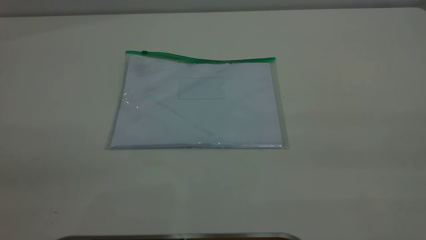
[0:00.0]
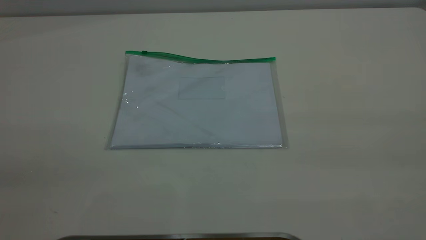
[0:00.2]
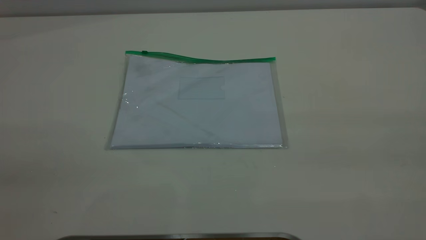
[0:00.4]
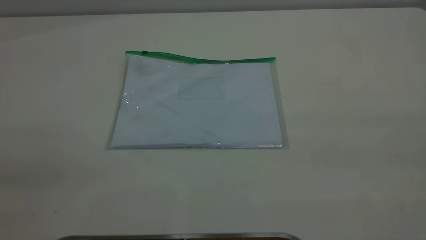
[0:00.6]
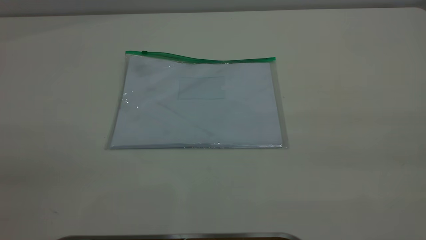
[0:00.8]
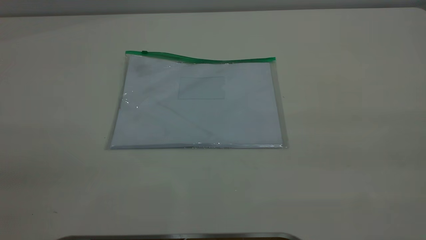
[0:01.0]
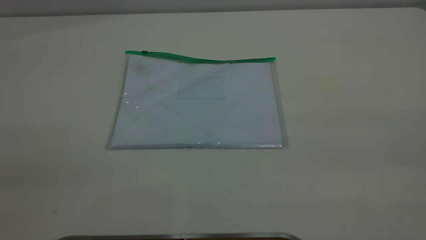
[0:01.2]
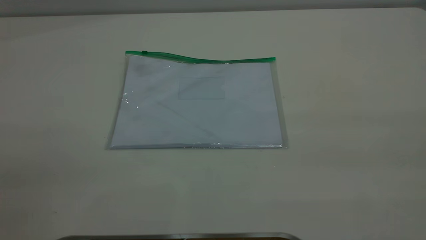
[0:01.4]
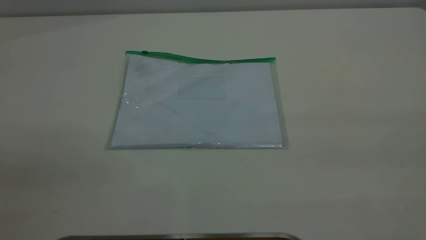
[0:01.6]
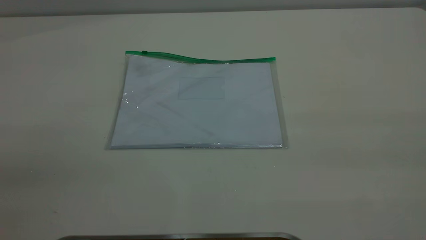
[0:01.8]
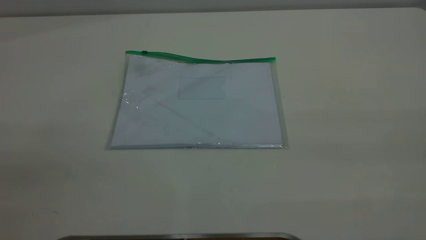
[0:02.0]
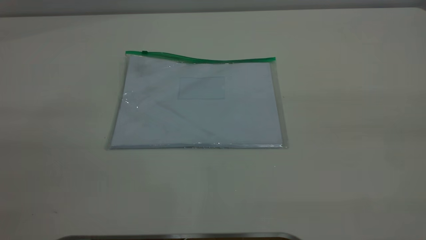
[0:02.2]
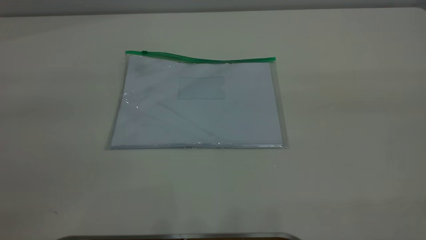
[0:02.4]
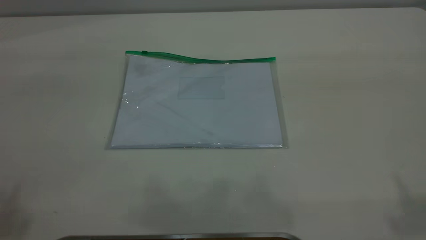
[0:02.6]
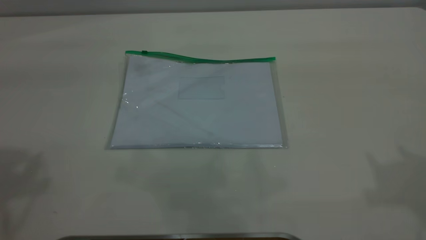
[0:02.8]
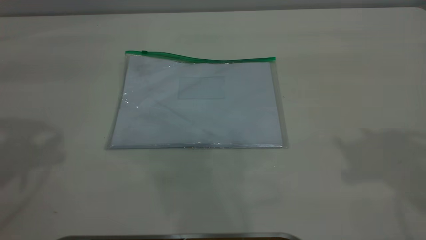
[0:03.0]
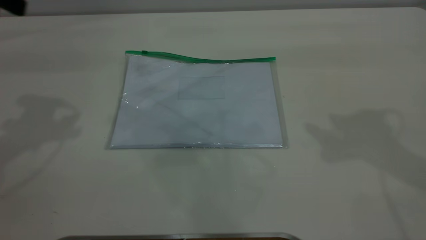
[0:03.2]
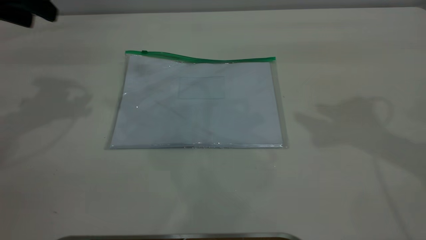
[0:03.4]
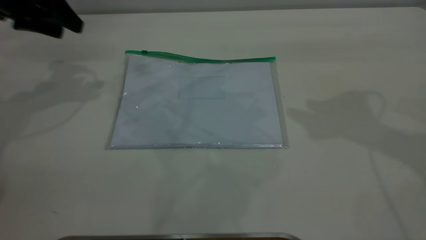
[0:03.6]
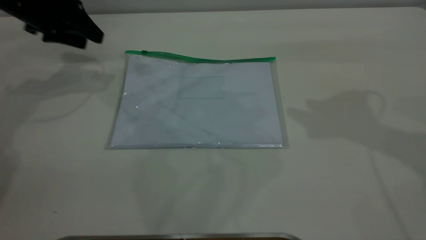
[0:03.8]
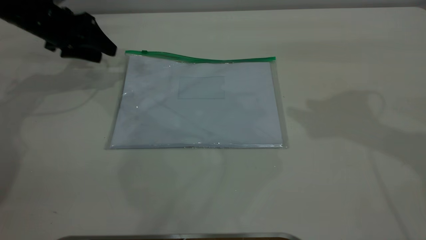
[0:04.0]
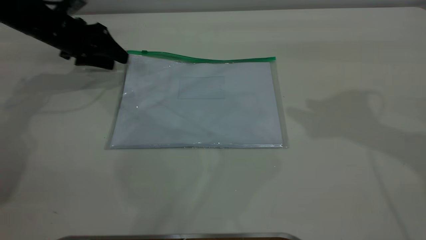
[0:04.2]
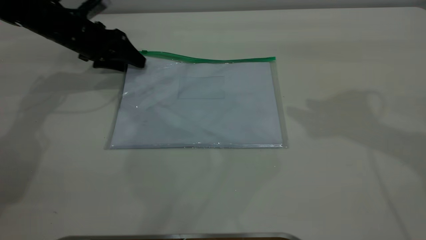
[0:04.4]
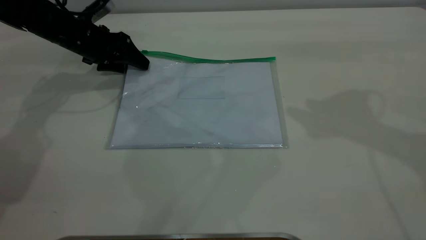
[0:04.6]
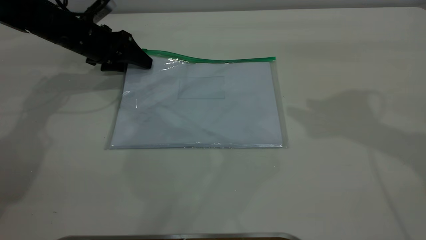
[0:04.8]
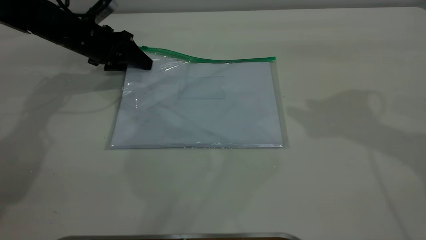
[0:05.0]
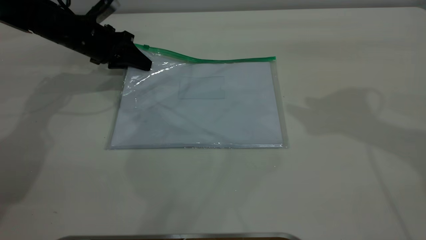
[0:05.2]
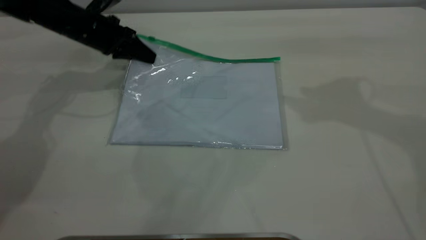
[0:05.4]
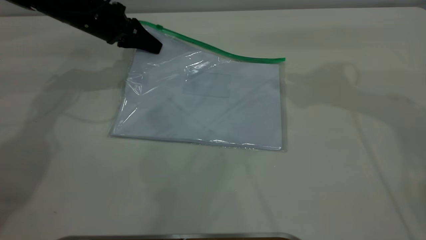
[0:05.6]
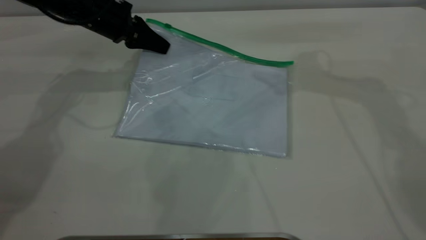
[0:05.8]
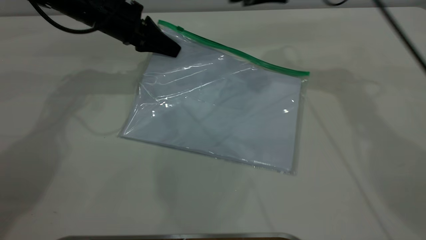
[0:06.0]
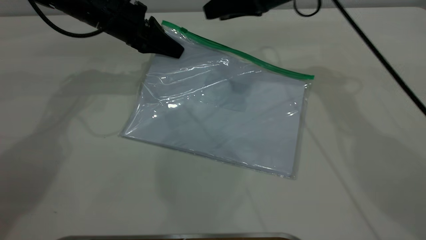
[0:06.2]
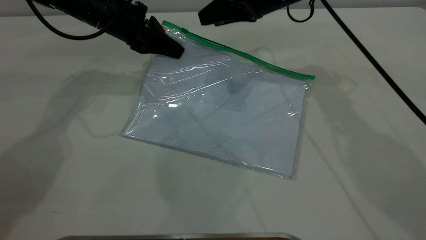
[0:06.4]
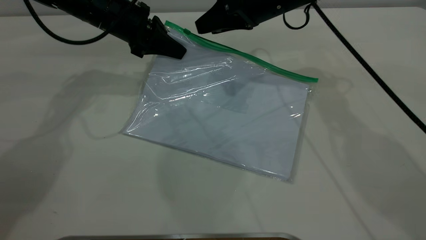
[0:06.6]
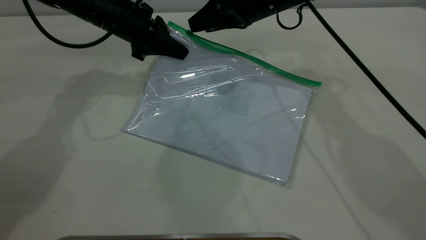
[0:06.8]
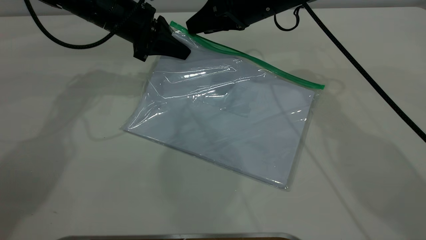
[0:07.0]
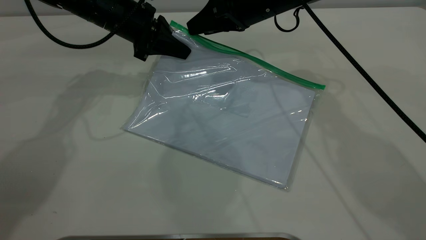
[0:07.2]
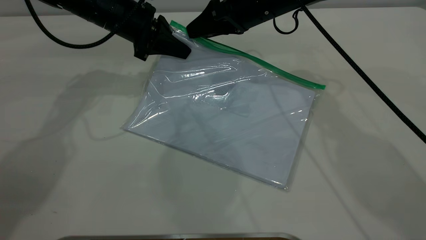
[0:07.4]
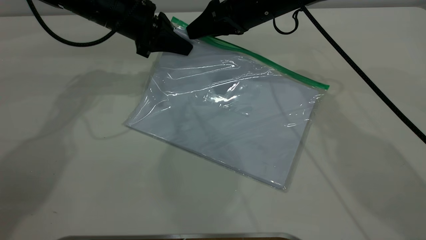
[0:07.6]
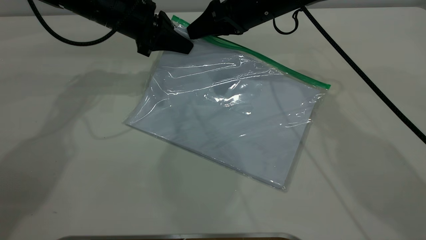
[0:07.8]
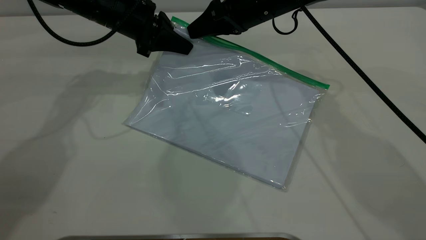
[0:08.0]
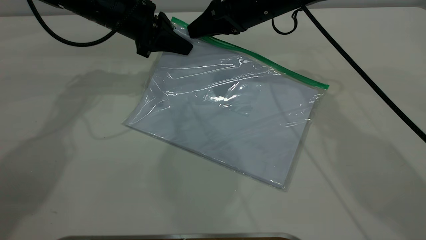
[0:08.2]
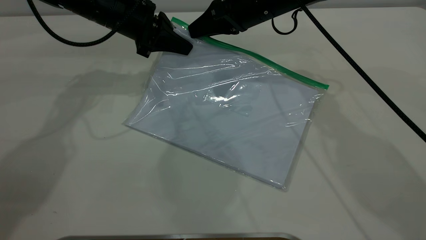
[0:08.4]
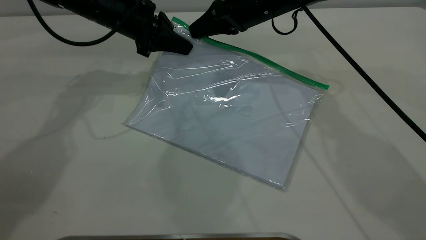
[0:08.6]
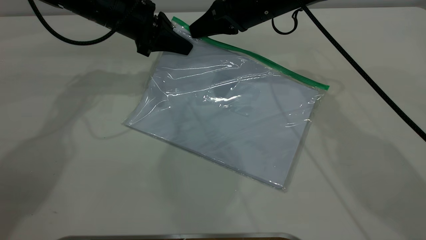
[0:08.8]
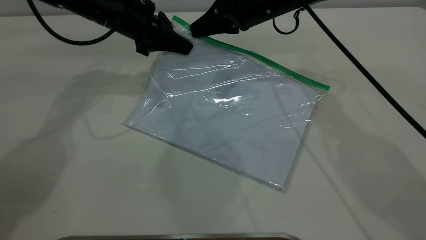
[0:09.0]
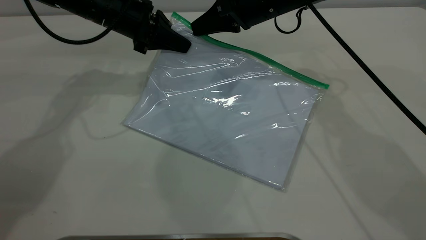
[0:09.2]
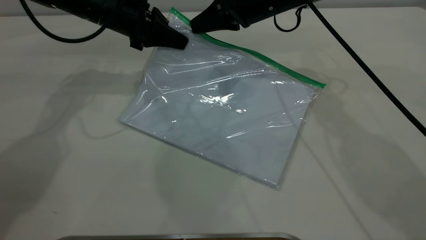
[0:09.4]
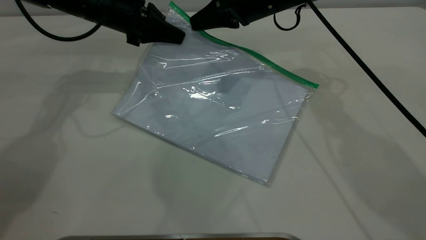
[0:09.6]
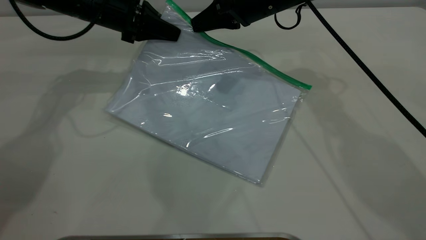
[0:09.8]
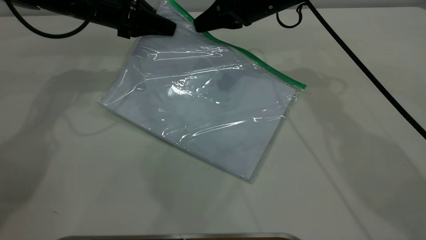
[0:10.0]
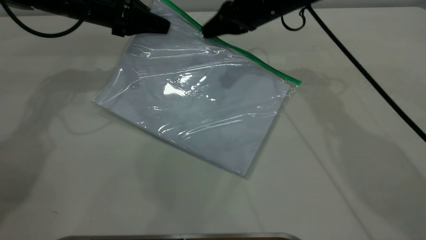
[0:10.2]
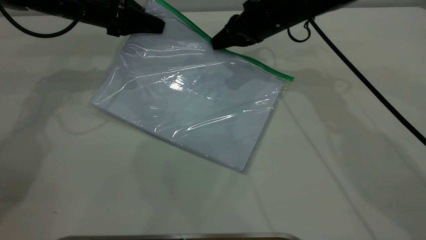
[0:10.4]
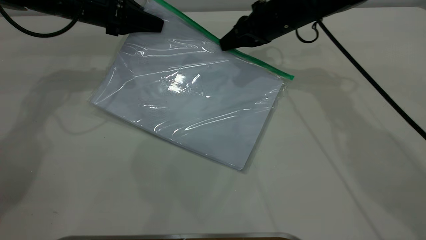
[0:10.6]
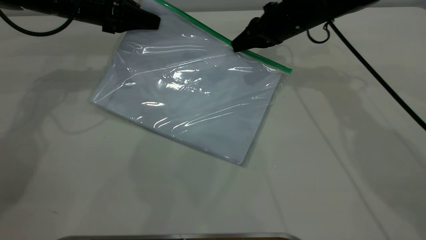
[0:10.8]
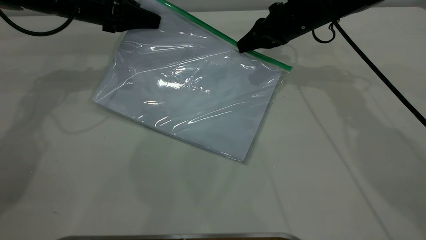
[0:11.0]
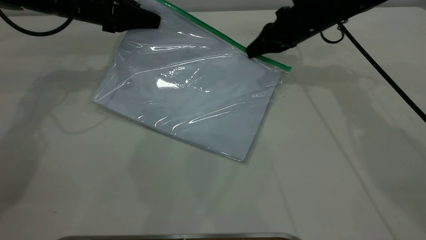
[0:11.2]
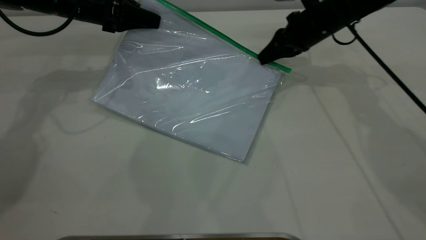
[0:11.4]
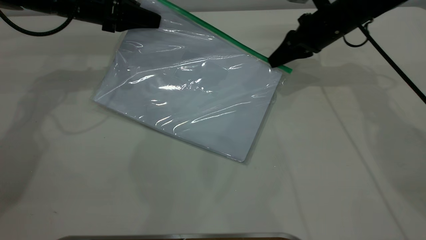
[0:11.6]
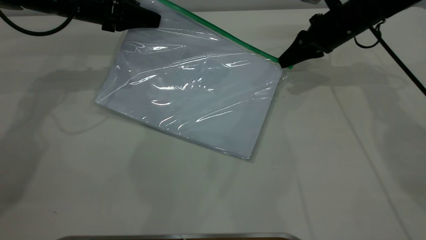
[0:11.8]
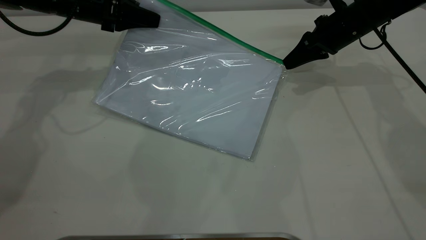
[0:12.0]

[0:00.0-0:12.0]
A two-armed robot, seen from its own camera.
Step, 0:00.0 to 0:05.2: Pick up the transparent plastic bag with the left gripper.
0:00.0 to 0:01.6: The two grippers keep their place.
0:03.0 to 0:04.4: The left gripper shifts some 30 cm downward and forward.
0:04.4 to 0:06.0: The right gripper heads forward, to the left and downward, covering roughly 20 cm; the left gripper shifts approximately 5 cm to the right, and closes.
0:06.0 to 0:07.6: The right gripper moves to the left, approximately 5 cm.
0:07.6 to 0:09.0: The right gripper closes.
0:09.0 to 0:10.4: The left gripper is displaced to the left by approximately 5 cm.
0:10.4 to 0:12.0: The right gripper travels to the right by roughly 10 cm.

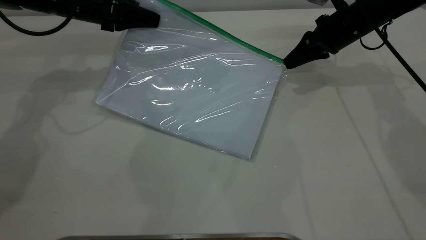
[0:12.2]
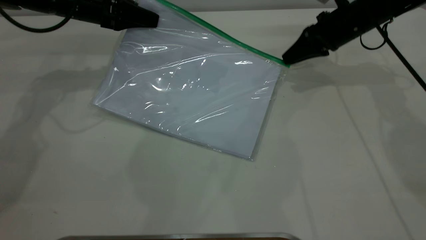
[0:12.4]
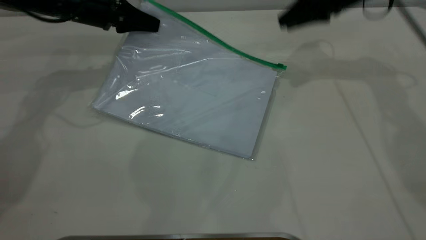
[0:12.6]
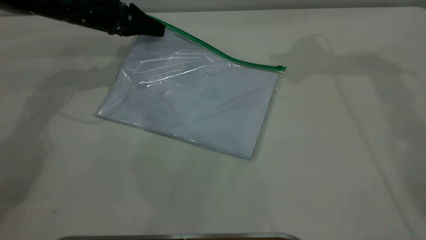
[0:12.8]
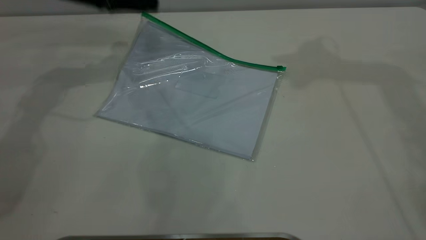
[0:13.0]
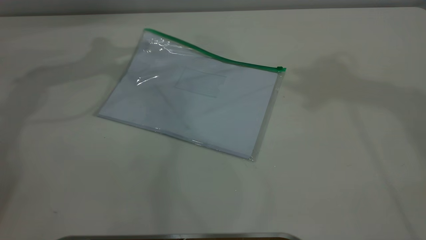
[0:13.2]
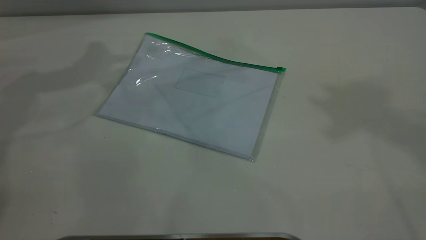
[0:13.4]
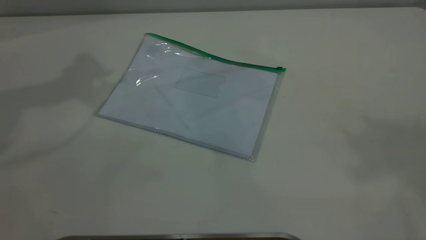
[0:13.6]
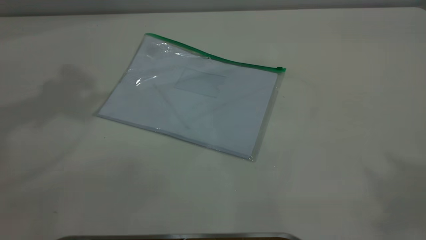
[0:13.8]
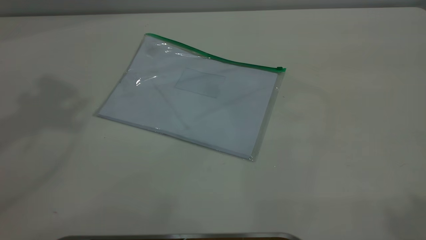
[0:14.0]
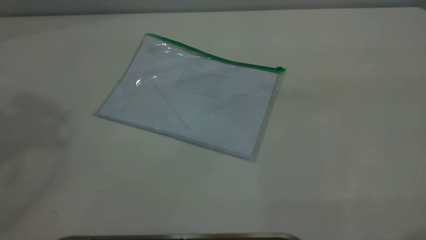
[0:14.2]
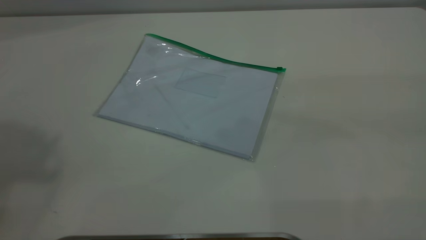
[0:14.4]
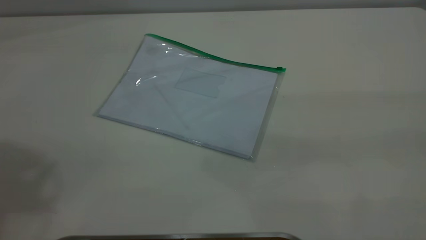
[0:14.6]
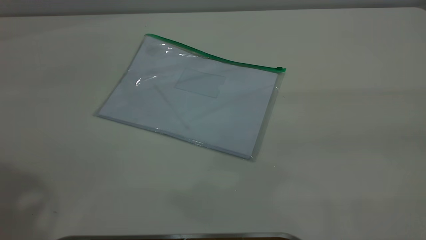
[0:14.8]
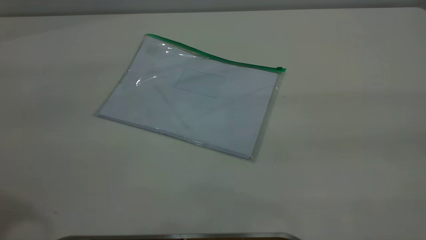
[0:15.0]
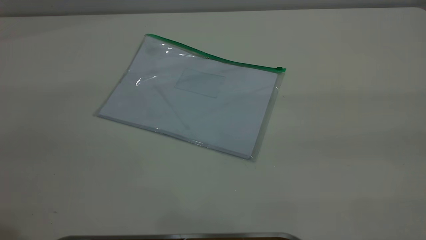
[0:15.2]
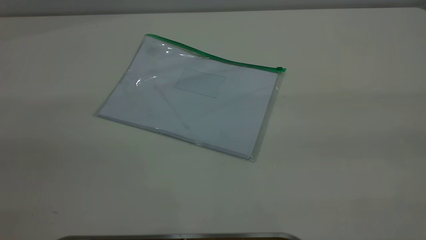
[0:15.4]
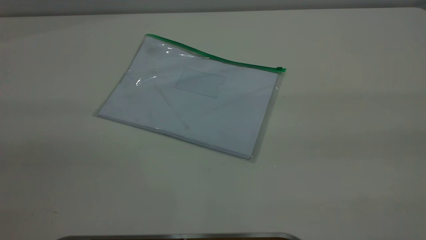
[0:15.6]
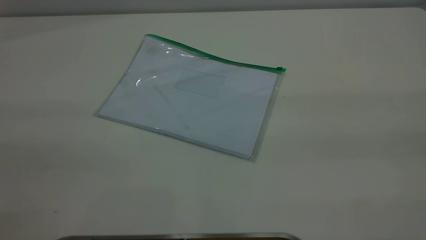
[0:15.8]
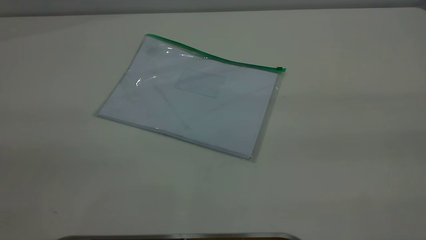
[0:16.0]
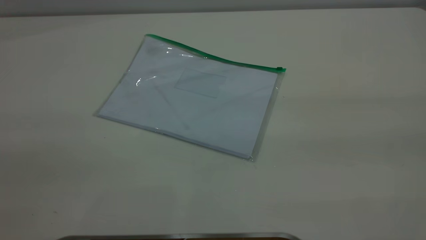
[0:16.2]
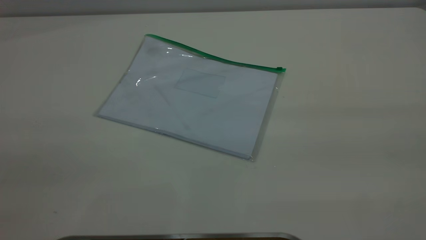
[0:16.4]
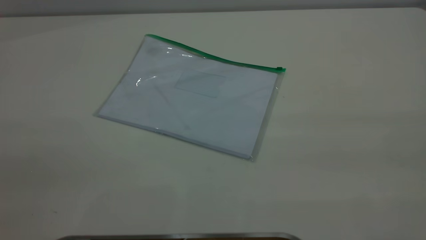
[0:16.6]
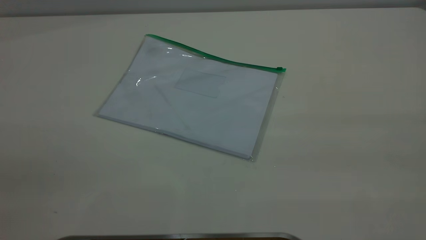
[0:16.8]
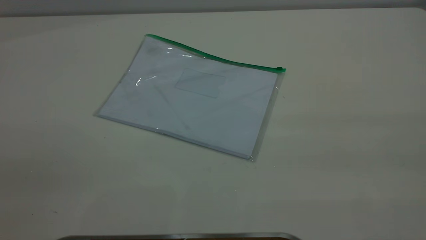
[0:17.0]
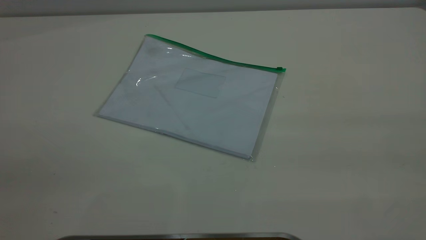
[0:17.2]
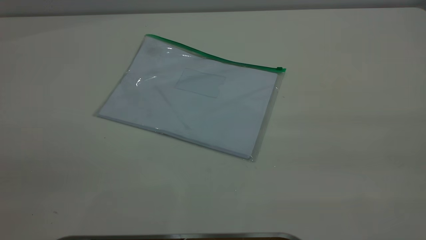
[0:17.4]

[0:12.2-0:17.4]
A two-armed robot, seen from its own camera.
Step, 0:12.6 to 0:13.0: Place the transparent plastic bag.
0:12.2 to 0:14.0: The right gripper shifts about 60 cm upward and backward, and opens up. Meanwhile the left gripper moves upward, roughly 40 cm, and opens.
